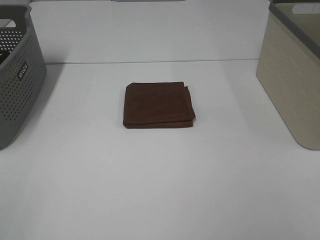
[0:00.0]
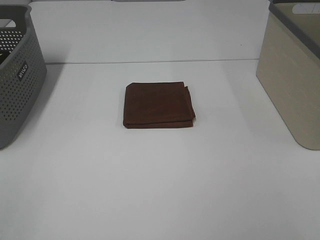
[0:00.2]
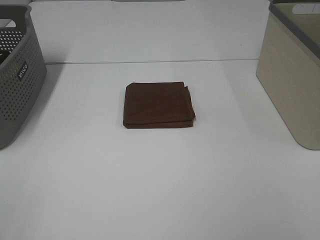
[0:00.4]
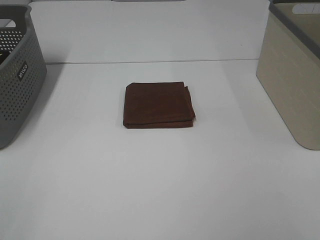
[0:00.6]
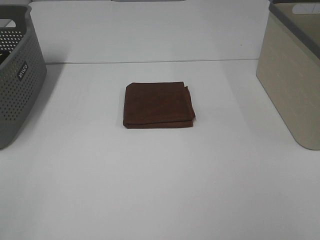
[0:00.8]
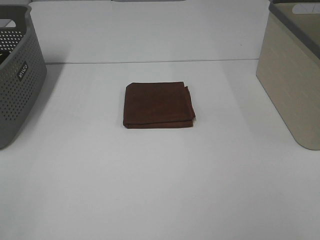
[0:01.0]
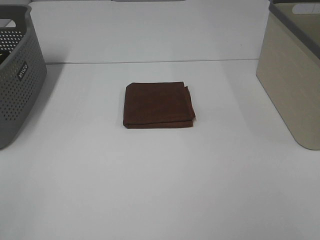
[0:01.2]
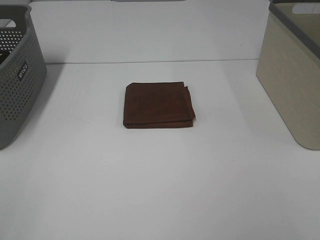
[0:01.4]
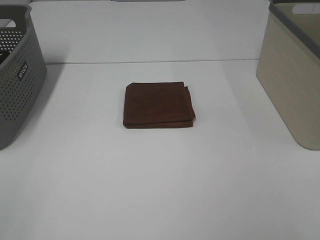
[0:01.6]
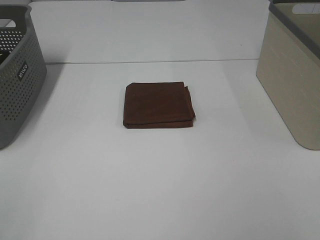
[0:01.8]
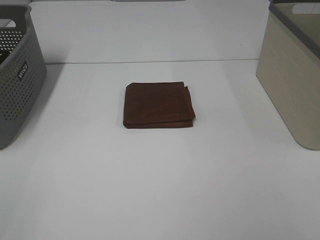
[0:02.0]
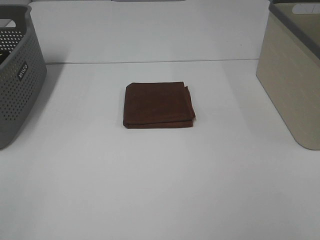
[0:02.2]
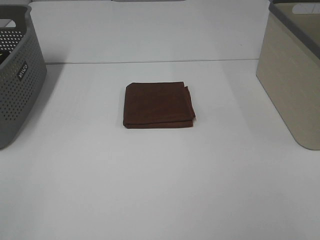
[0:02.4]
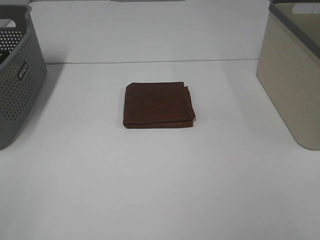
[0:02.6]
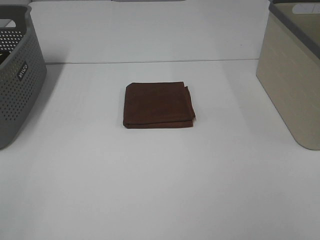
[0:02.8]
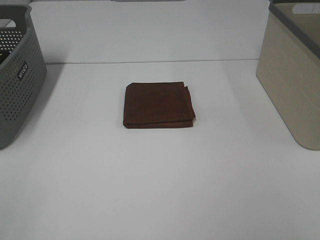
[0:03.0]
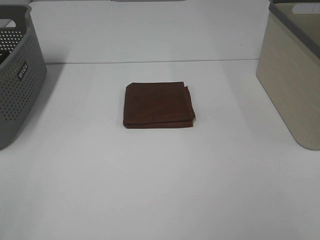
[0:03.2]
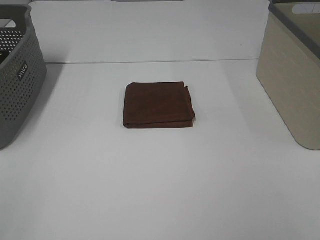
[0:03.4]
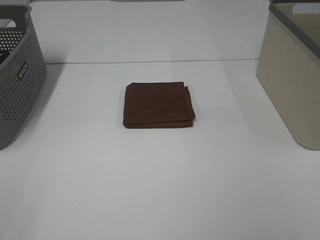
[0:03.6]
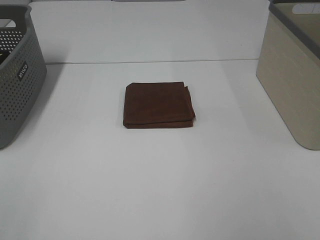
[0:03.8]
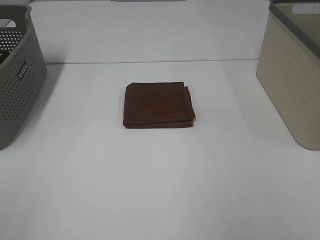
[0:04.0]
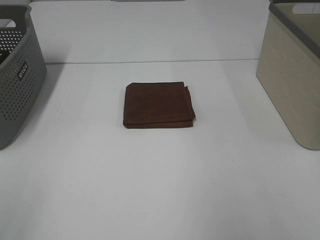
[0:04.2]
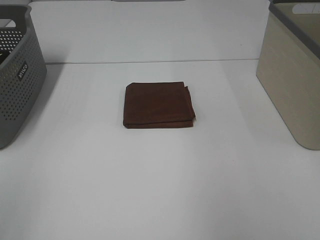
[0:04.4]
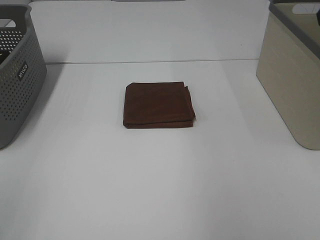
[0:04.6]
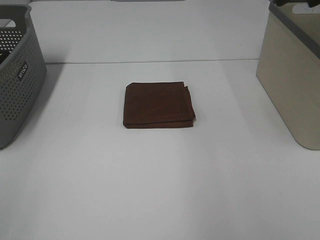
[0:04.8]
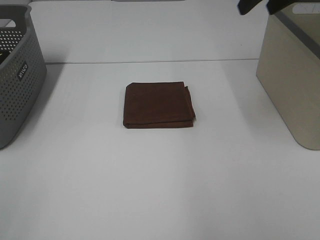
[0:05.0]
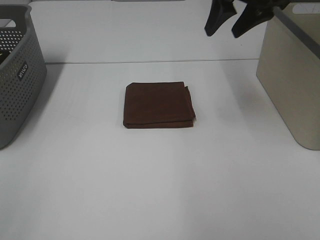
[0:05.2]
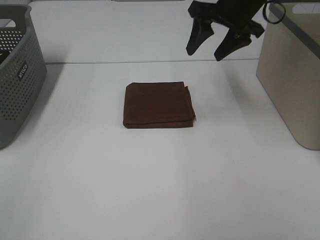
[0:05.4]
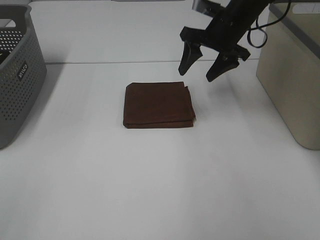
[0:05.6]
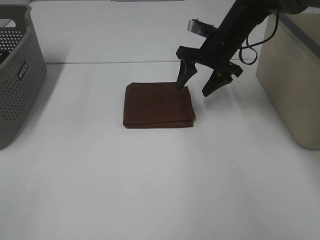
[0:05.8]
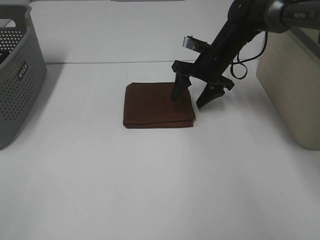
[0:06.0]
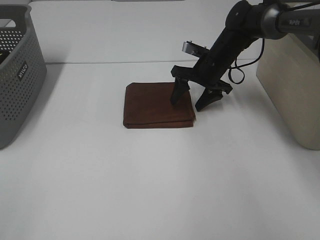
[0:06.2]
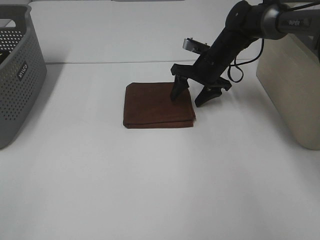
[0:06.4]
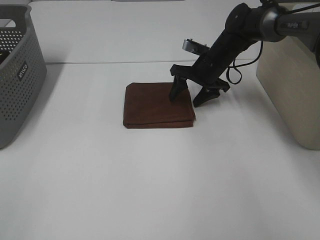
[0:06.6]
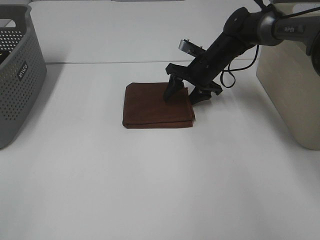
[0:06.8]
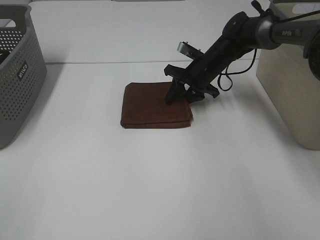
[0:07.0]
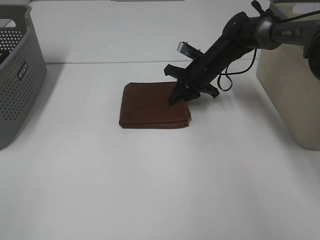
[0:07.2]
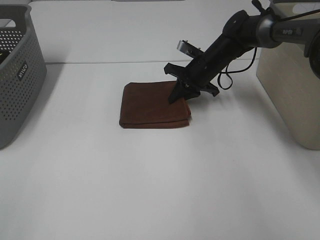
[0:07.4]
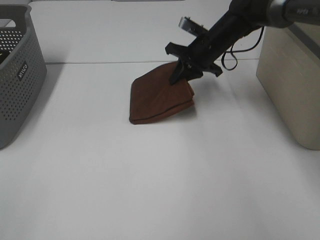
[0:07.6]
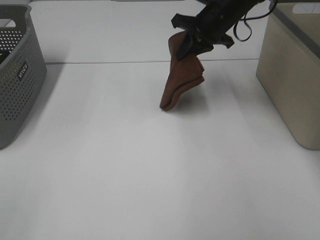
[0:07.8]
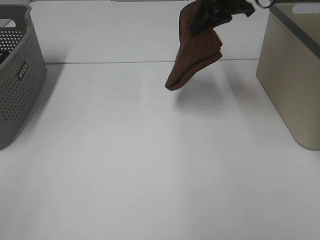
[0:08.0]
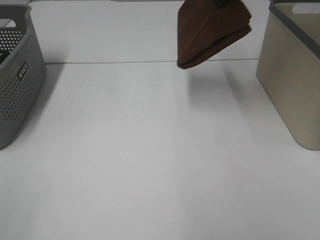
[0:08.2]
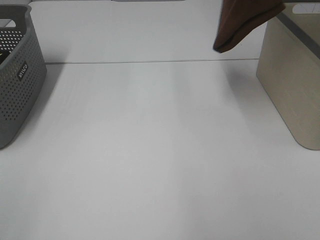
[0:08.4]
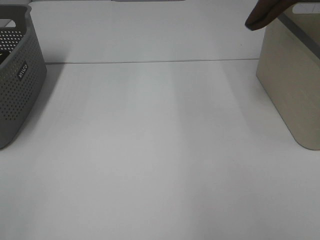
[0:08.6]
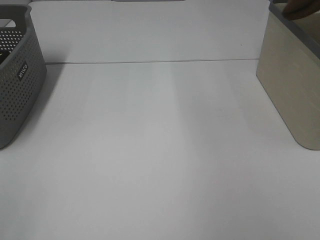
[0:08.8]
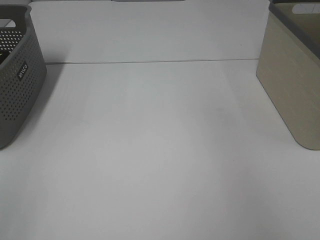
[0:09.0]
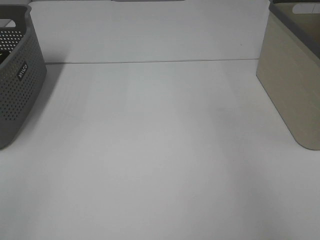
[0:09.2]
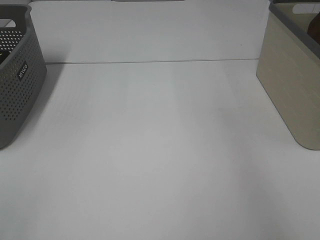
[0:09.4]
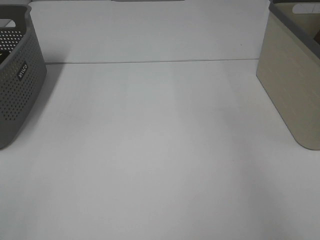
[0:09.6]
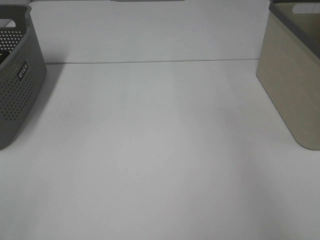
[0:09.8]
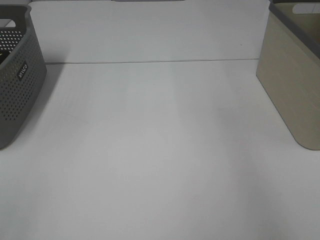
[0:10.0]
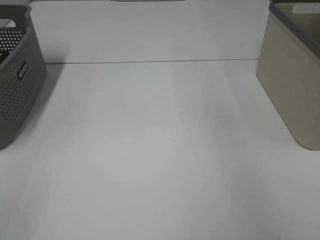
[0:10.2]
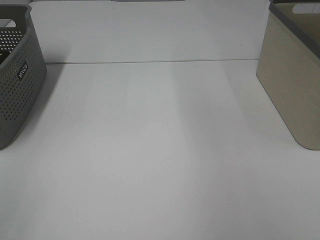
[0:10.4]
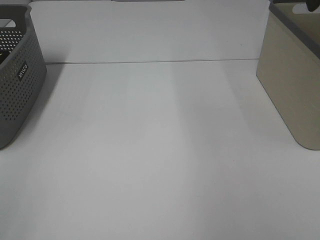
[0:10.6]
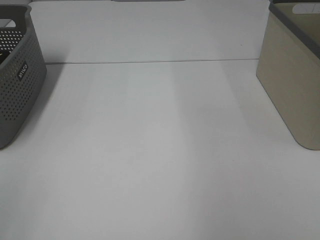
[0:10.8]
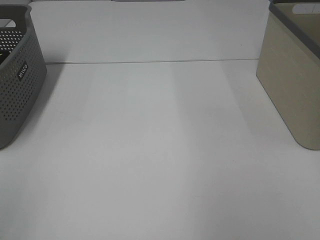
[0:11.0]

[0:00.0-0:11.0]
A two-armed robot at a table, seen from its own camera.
Step, 0:00.0 to 0:07.2: Right hand: grab the folded brown towel.
Step, 0:07.4 to 0:09.8: Right hand: place the brown towel in right basket.
0:00.0 to 0:03.2: Both grippers stay about where they are.
0:04.8 to 0:06.2: The right gripper moves downward, forward and to the left, some 30 cm.
0:06.2 to 0:07.8: The right gripper travels upward by about 10 cm, and closes up.
0:07.8 to 0:09.4: The right gripper heads to the right and upward, covering roughly 25 cm.

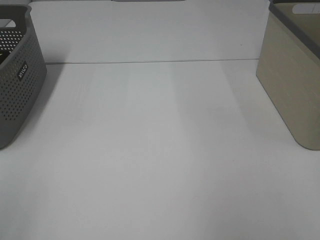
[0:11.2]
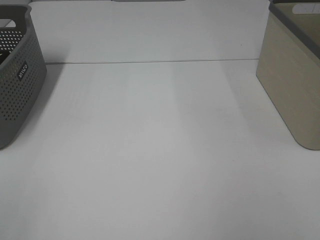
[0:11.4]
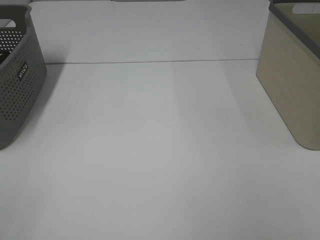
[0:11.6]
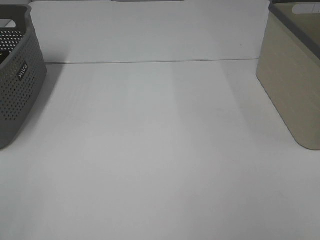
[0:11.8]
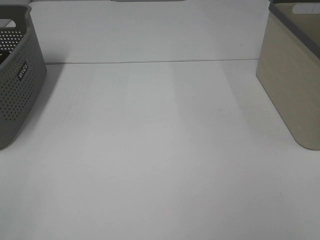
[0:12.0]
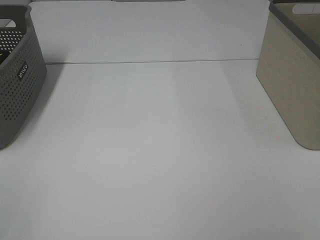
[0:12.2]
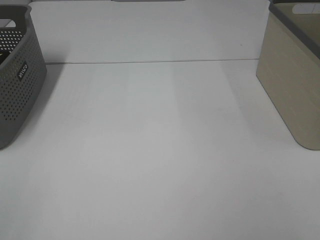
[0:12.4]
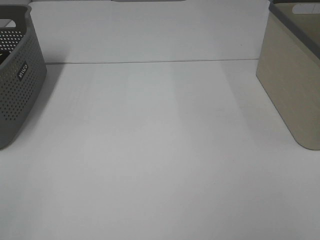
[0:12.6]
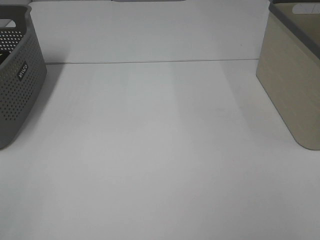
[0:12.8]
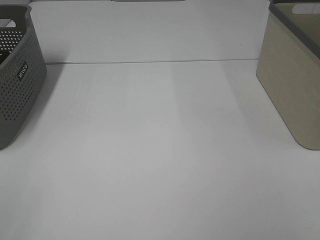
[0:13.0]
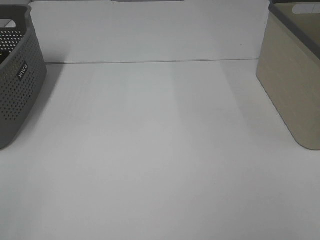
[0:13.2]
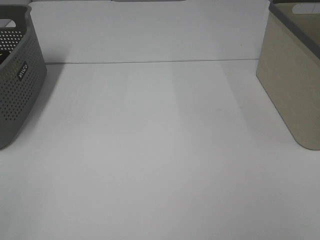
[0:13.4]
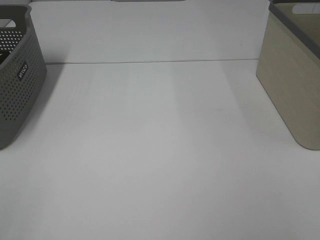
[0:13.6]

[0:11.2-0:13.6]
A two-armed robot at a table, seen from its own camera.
0:12.4 to 0:13.6: The two grippers keep their place.

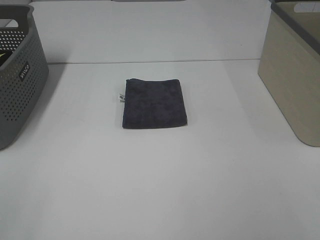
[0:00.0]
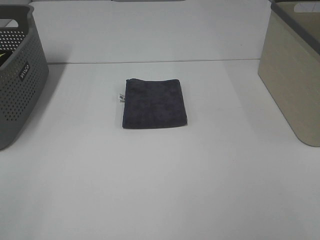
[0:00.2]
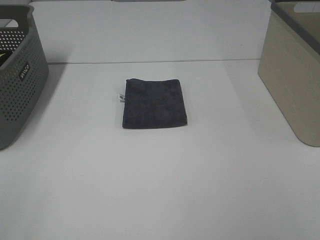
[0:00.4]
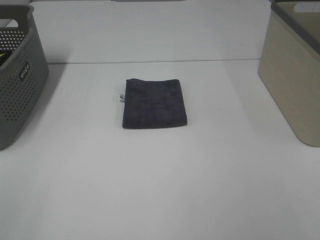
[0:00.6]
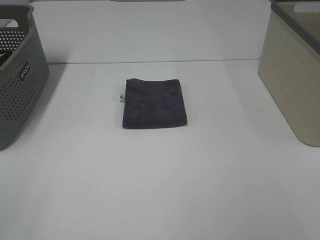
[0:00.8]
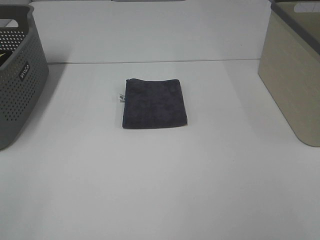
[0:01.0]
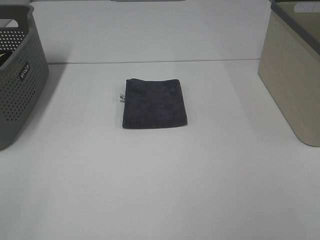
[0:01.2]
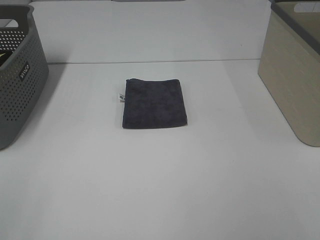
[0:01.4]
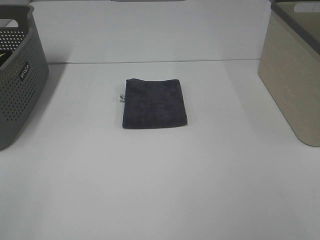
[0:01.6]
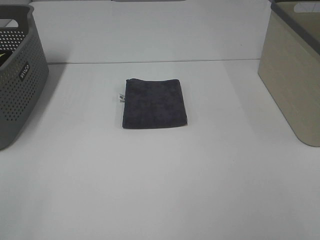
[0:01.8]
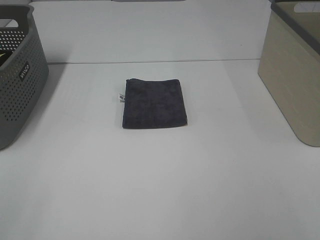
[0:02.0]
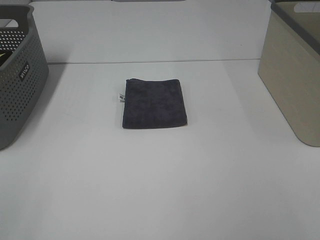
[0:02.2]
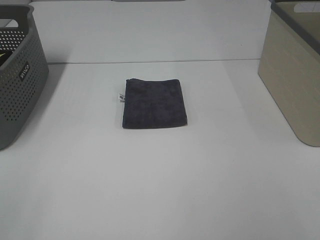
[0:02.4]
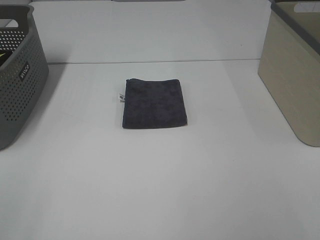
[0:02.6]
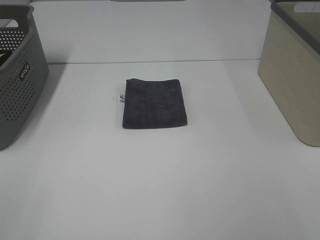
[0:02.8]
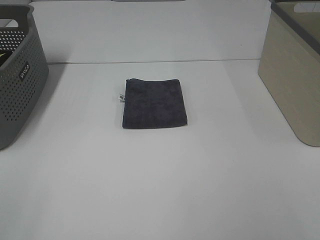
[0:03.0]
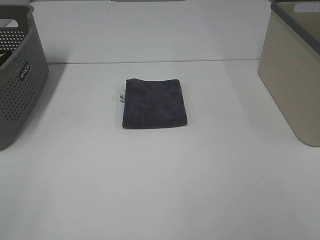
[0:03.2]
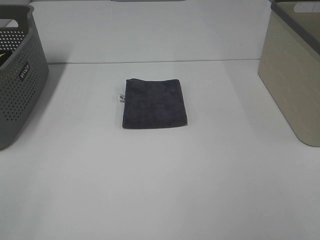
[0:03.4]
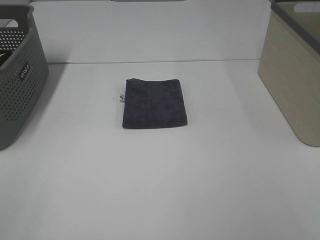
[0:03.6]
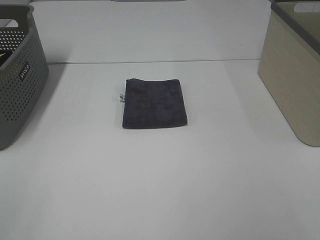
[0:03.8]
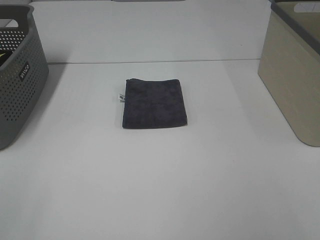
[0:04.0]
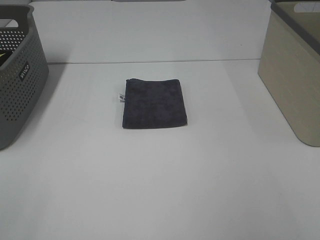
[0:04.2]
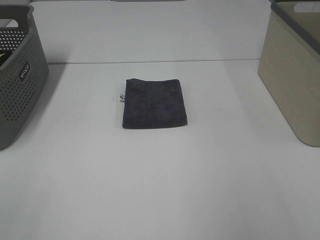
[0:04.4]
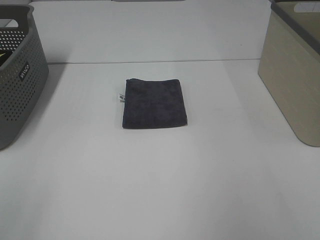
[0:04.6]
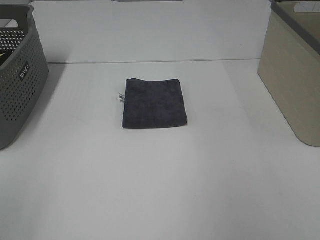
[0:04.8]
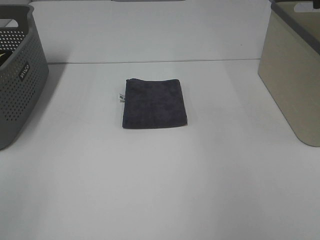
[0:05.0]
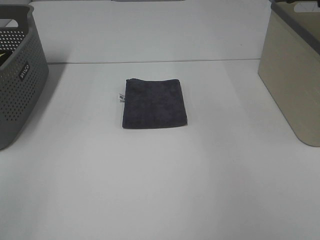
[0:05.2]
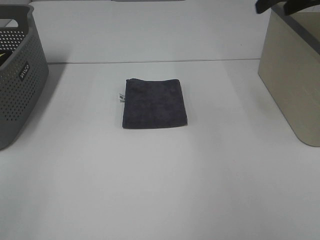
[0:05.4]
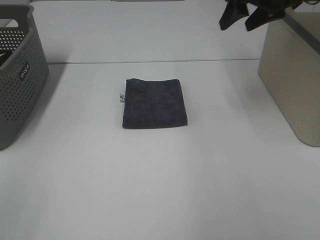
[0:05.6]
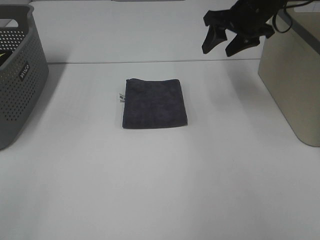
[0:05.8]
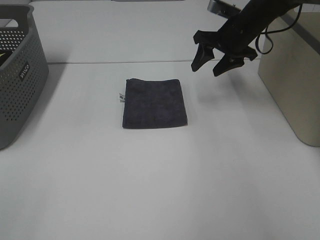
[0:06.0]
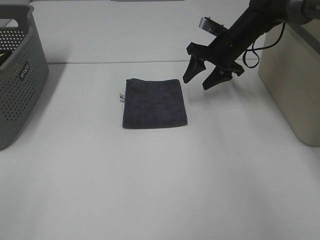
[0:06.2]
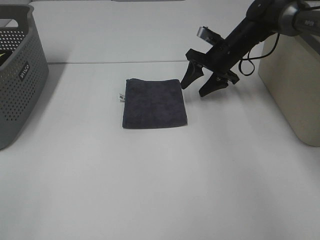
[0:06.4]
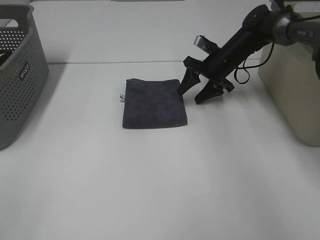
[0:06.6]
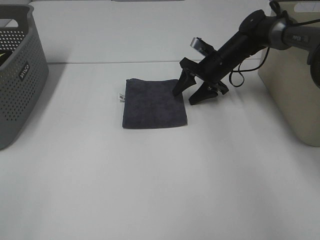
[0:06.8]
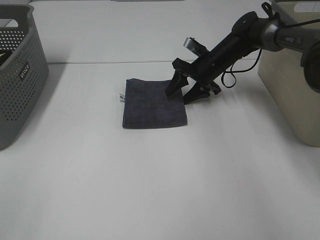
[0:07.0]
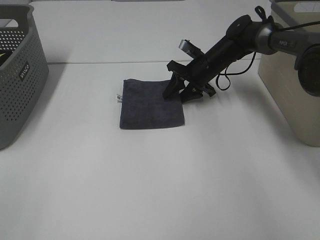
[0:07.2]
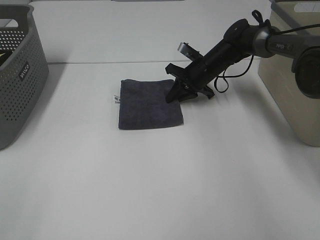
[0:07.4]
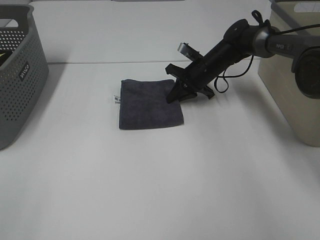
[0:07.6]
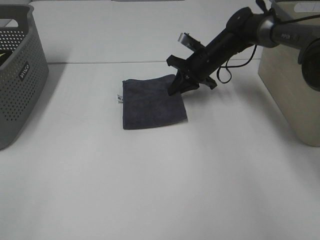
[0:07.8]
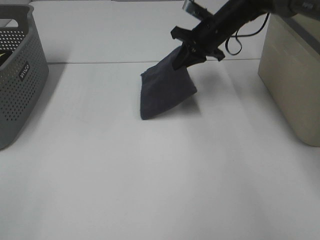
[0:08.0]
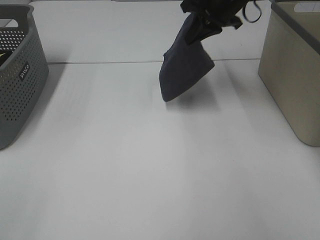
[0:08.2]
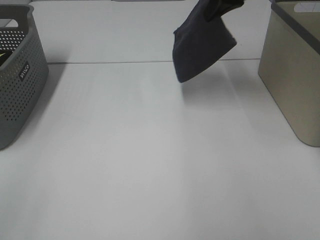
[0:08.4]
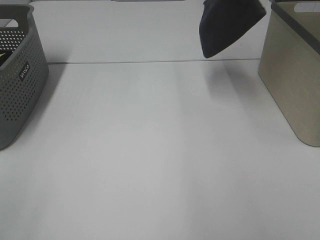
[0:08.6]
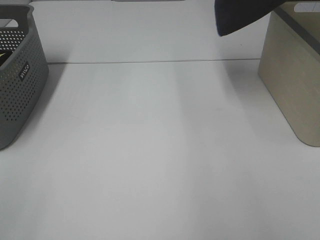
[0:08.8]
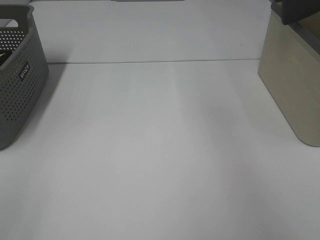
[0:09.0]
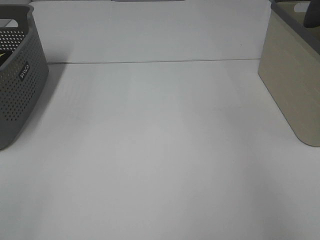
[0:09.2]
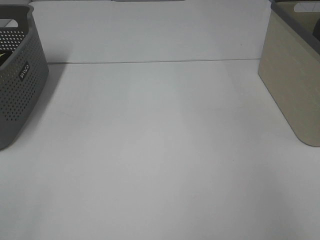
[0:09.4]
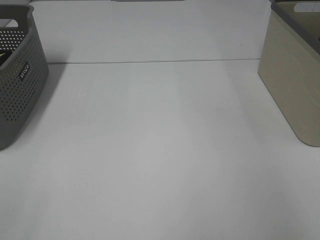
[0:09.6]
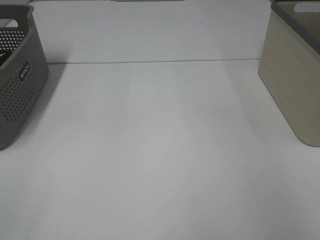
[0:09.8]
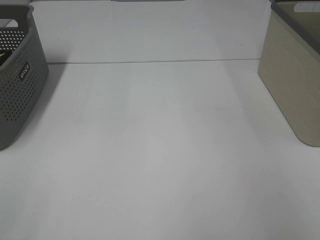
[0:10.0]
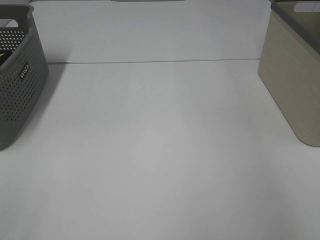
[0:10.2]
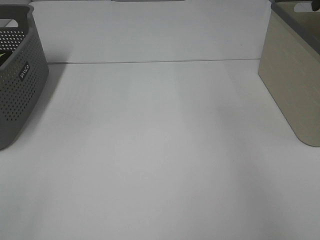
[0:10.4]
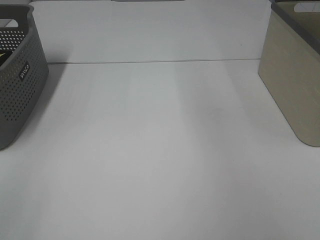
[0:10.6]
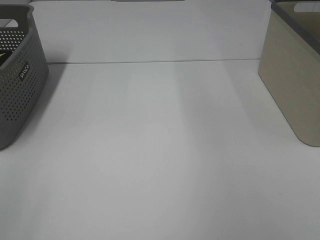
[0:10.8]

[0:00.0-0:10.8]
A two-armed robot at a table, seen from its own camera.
Step, 0:00.0 to 0:07.4: Right hand: grab the folded grey towel.
Step, 0:07.6 to 0:10.0: Right hand: place the grey towel in right basket.
0:00.0 to 0:03.0: The two grippers keep their place.
0:04.6 to 0:06.2: The right gripper heads forward, downward and to the left, covering roughly 40 cm.
0:06.2 to 0:07.8: The right gripper closes its fingers.
0:07.8 to 0:09.2: The right gripper goes approximately 40 cm upward and to the right.
